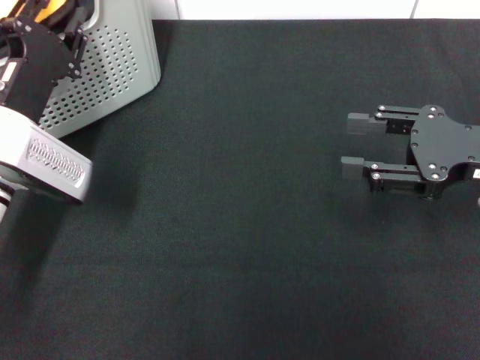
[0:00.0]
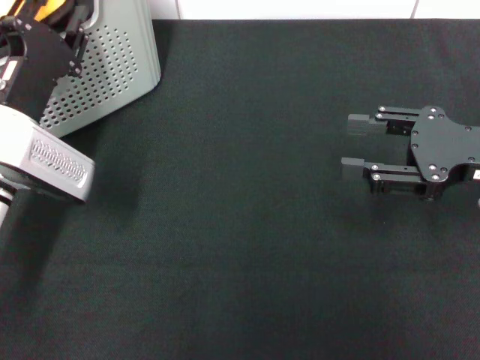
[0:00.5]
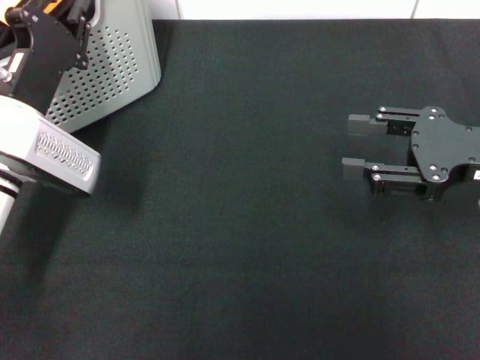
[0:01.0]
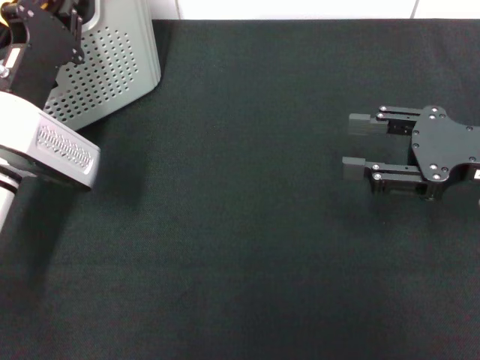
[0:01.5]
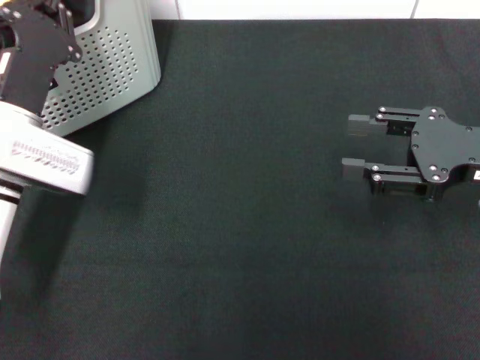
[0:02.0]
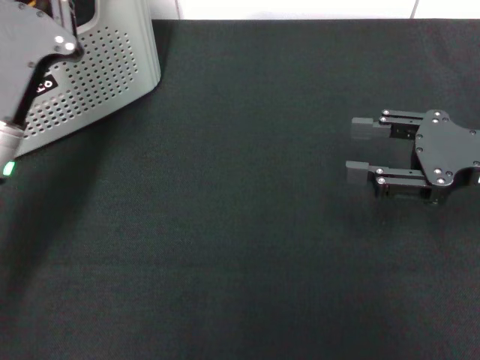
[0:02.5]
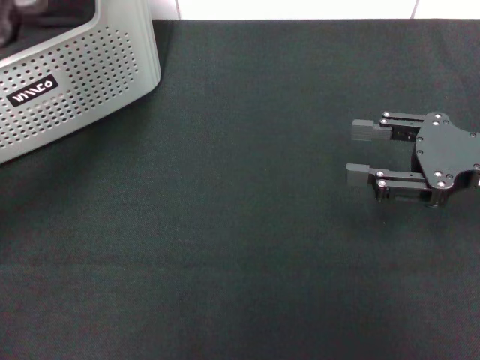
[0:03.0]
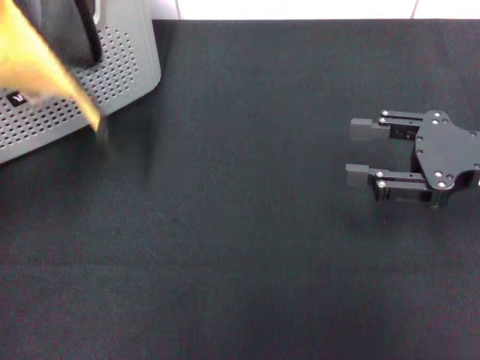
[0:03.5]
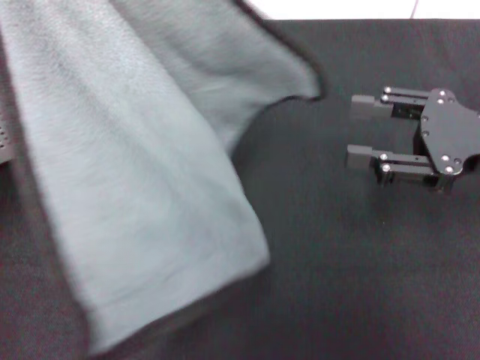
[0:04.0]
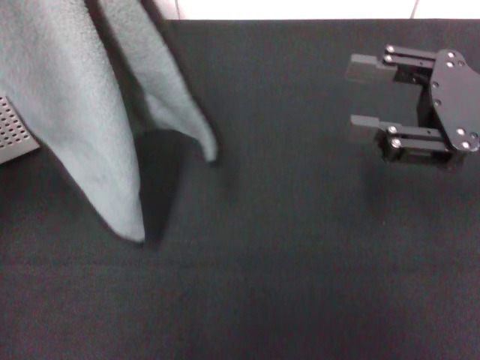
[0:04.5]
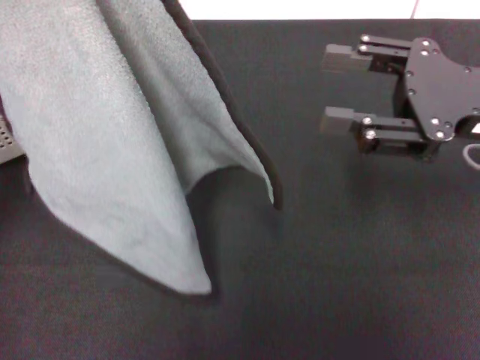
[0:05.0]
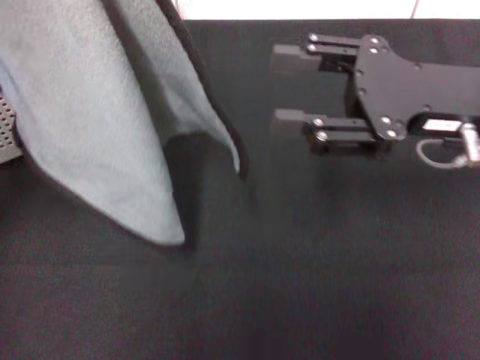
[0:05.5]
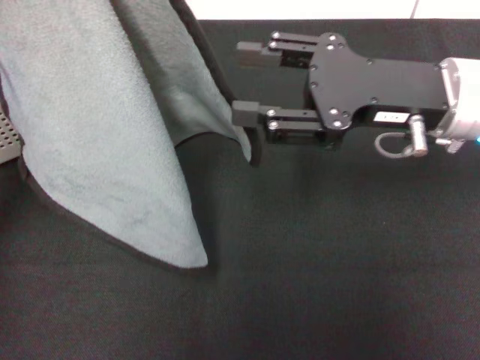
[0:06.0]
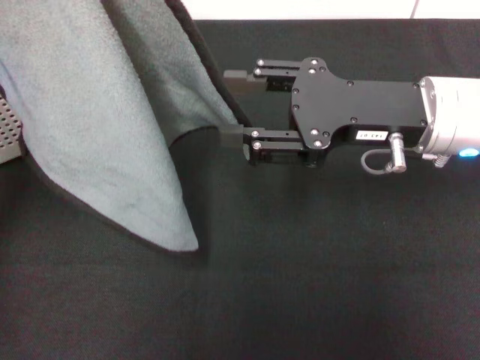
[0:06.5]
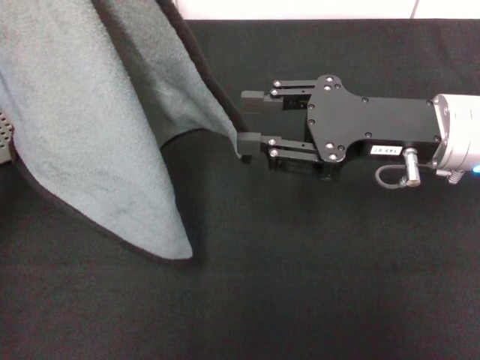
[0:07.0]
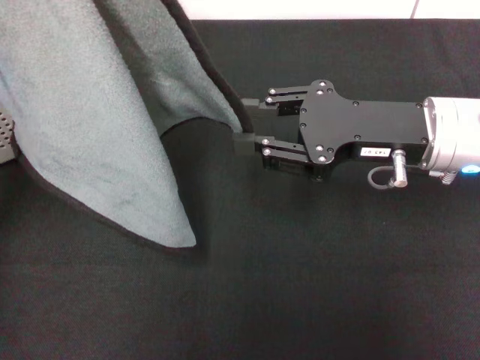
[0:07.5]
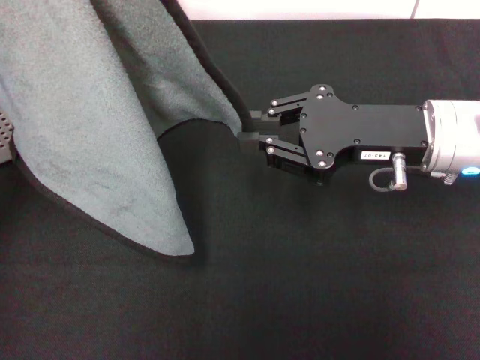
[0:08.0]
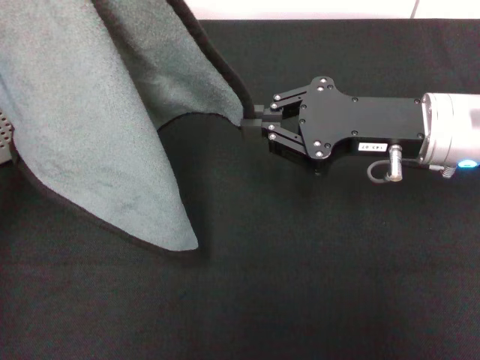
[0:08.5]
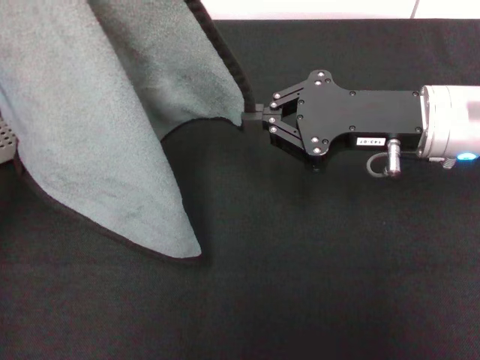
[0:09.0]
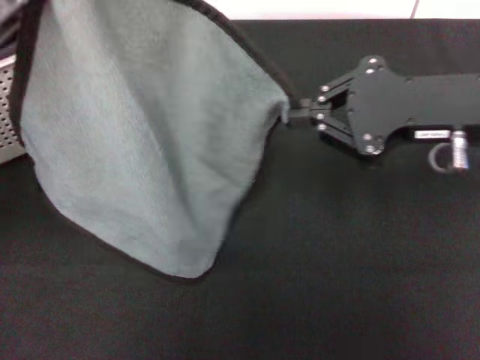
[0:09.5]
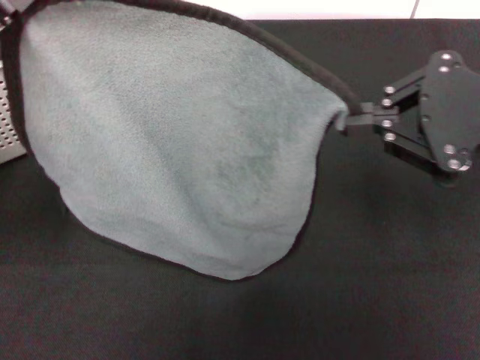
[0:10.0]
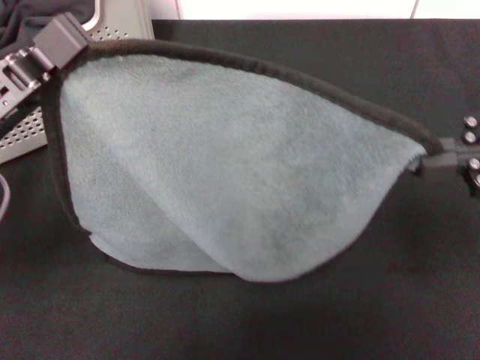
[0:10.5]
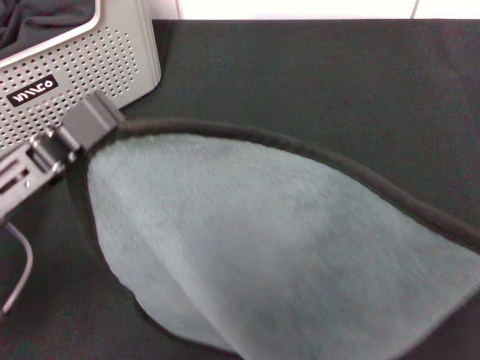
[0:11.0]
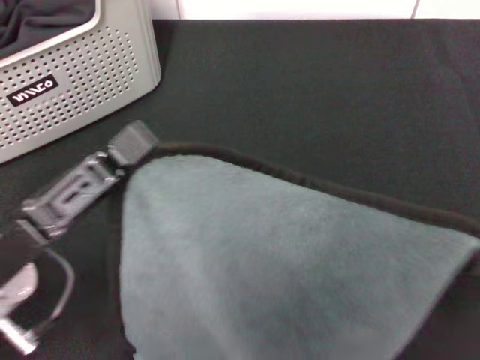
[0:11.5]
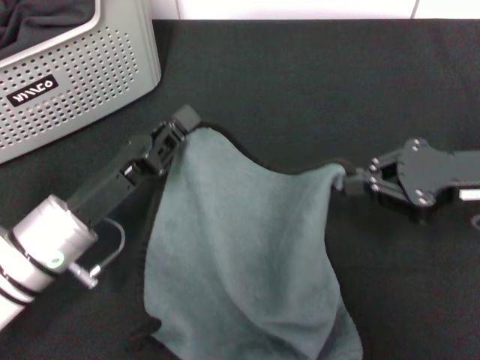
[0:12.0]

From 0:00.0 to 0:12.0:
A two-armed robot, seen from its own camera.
Task of the whole recording: pick up the towel from the storage box and lay it flat on the black tablecloth.
Step, from 0:02.0 to 0:08.5: Spread the towel flat with the left gripper.
From 0:00.0 to 0:02.0: The left gripper closes.
From 0:02.0 to 0:04.0: The left gripper moves upward, about 15 cm.
From 0:04.0 to 0:06.0: The right gripper shifts some 10 cm to the left.
From 0:06.0 to 0:08.0: The right gripper closes up.
From 0:08.0 to 0:10.0: The right gripper travels upward, to the right and backward by roughly 10 cm; the left gripper ends up about 5 cm from where it was.
From 0:10.0 to 0:12.0: The left gripper shifts roughly 15 cm downward and to the right, while the right gripper moves downward, roughly 10 cm.

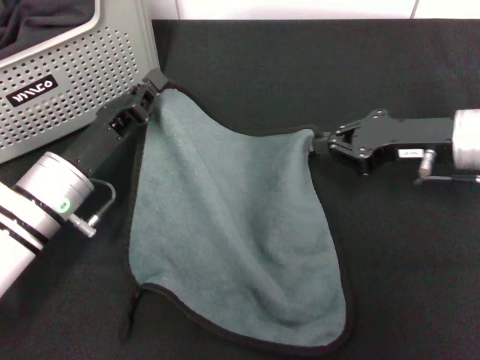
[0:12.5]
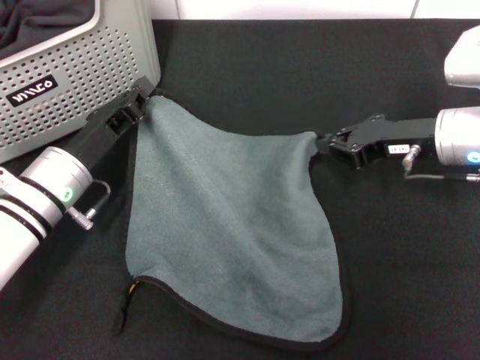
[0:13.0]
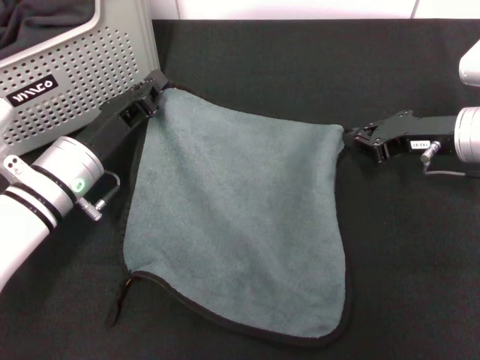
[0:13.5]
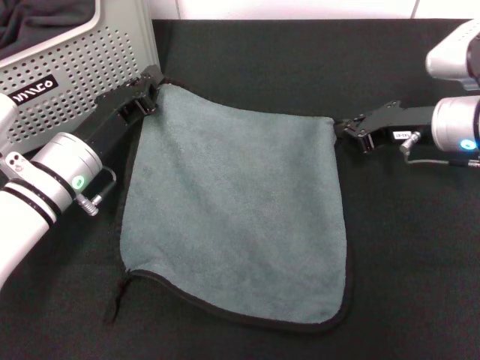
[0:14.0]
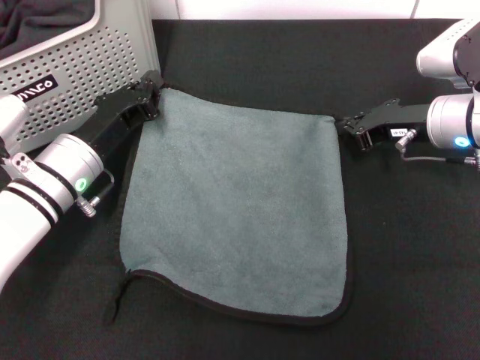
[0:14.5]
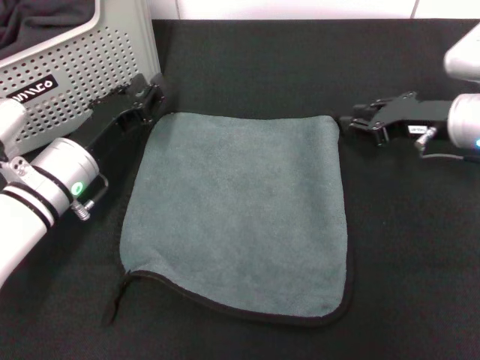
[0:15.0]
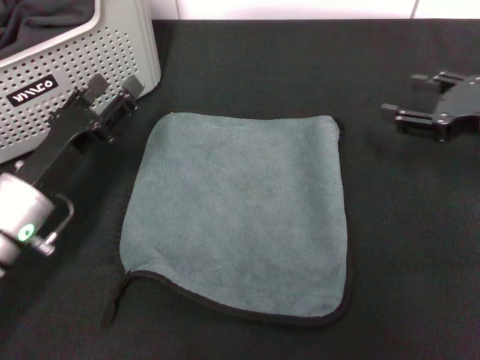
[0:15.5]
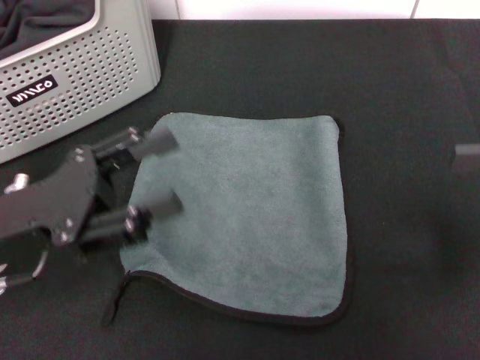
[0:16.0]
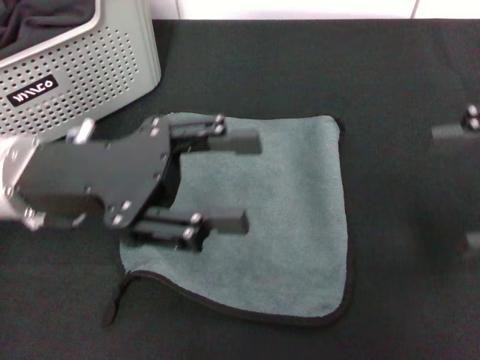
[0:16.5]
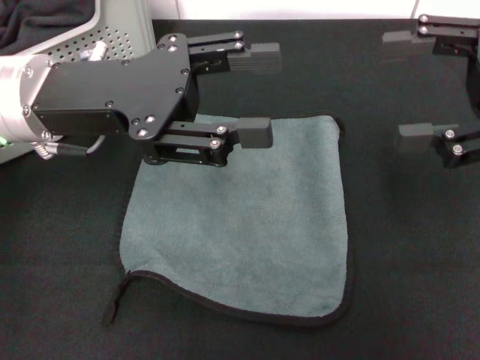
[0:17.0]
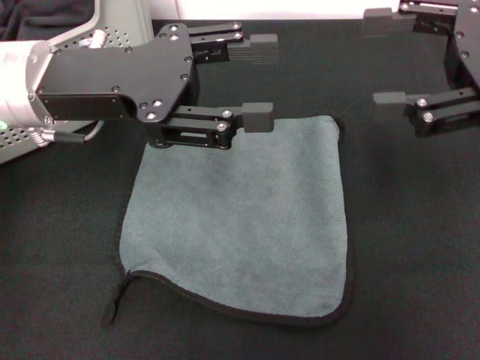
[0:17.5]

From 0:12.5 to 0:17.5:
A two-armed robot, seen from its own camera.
Task of the whole recording: pick up the towel from the storage box and lay it flat on the black tablecloth.
Step, from 0:12.5 to 0:14.5: Spread the towel flat with the right gripper.
From 0:15.0 to 0:17.5: The left gripper heads upward, covering some 15 cm, and opens its fingers, while the right gripper shifts roughly 15 cm upward and backward, and opens its fingers.

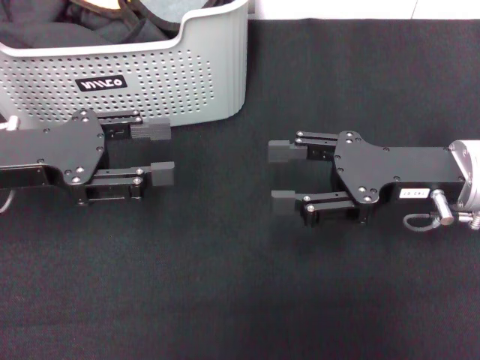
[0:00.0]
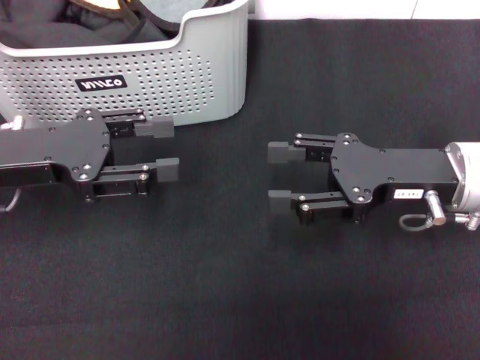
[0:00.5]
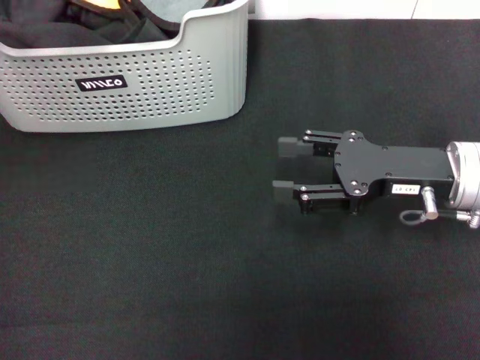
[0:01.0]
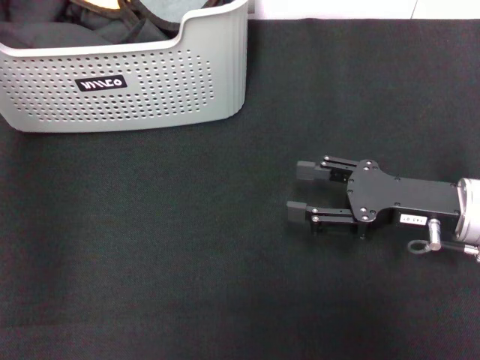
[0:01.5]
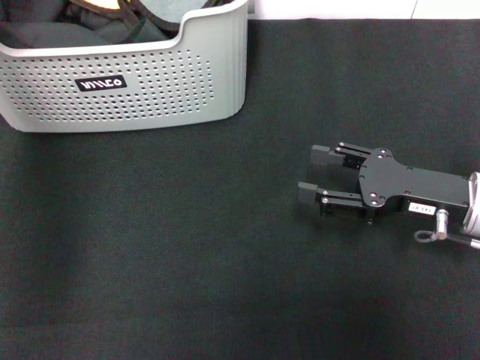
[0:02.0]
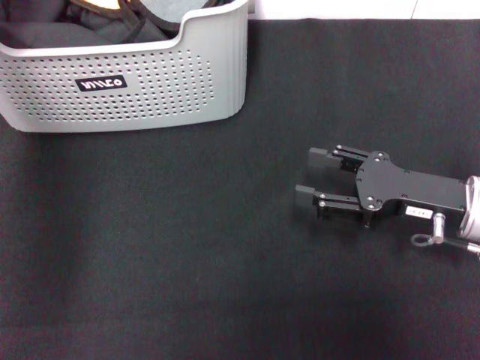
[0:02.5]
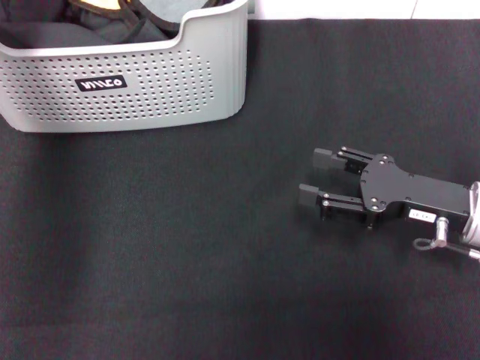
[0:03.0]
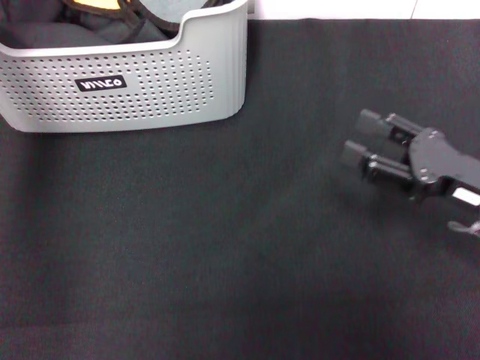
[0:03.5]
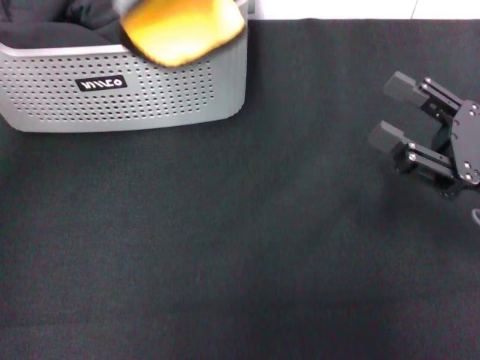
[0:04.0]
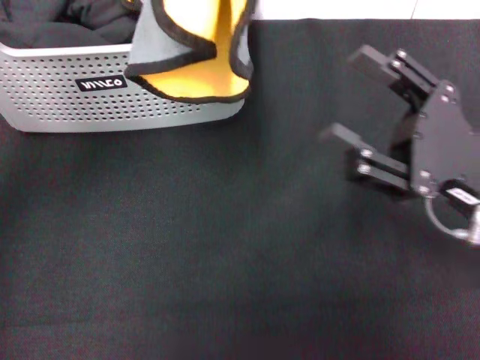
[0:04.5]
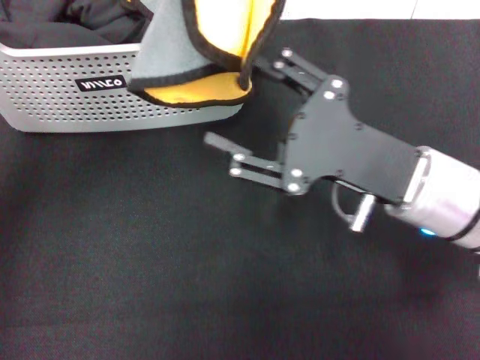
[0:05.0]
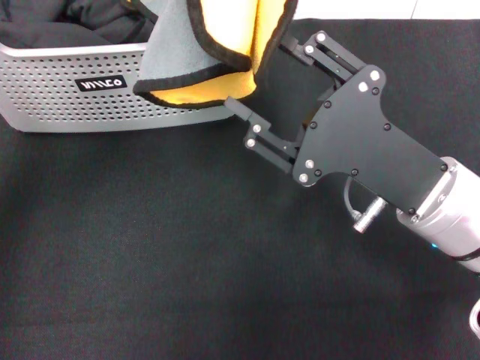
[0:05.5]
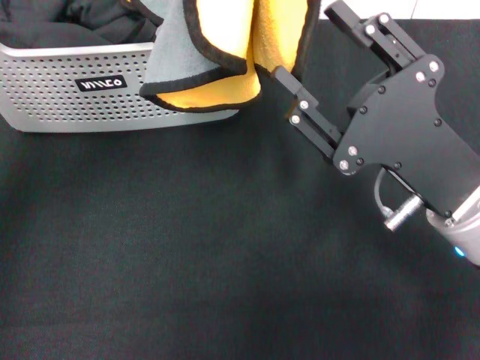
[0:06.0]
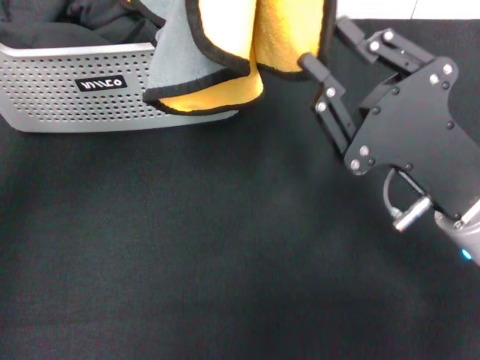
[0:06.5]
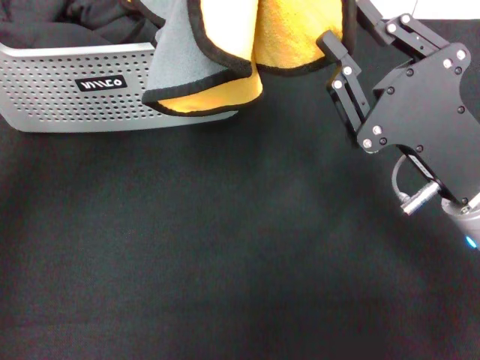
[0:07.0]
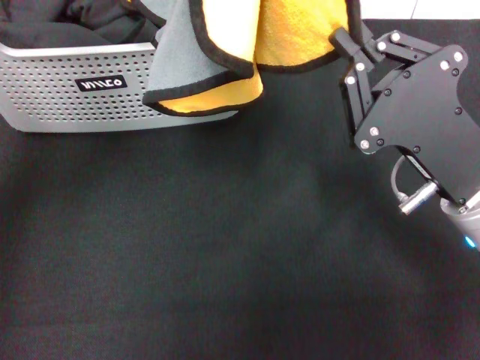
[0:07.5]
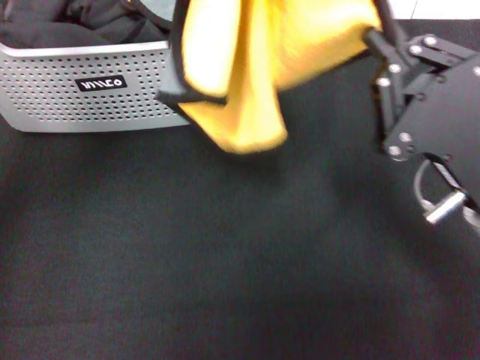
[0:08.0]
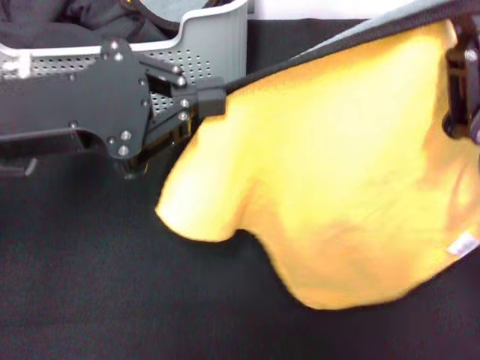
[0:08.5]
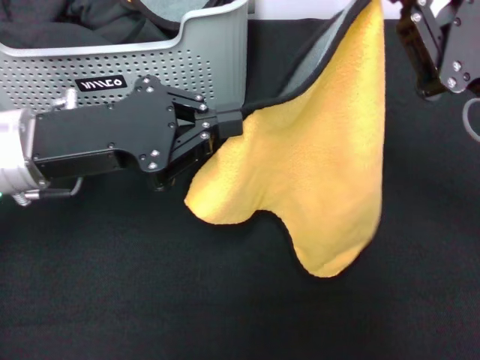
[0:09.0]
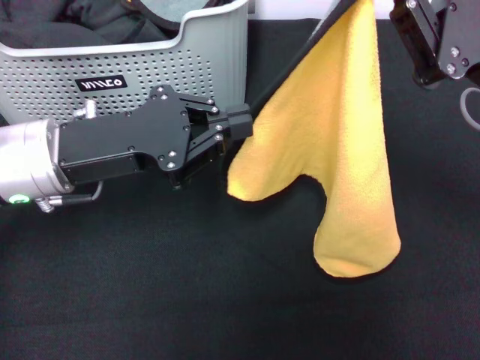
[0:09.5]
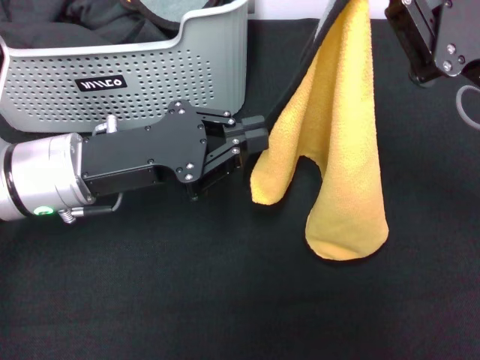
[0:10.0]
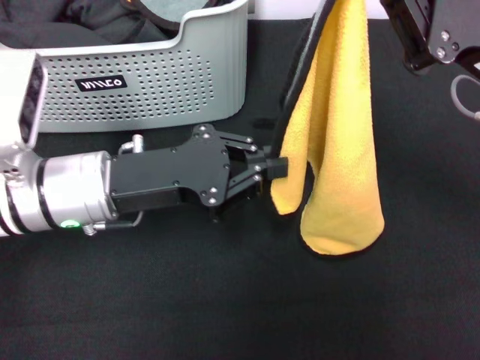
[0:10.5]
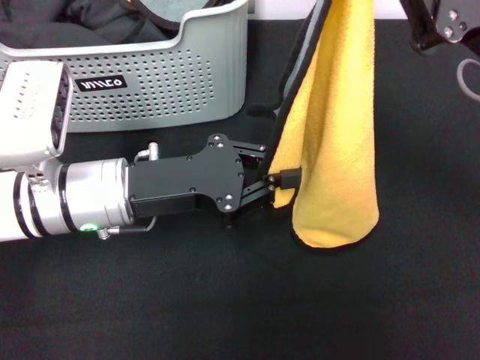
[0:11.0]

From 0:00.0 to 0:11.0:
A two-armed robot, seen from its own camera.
Task of the whole recording: pick up the towel from the storage box and lay it flat on the black tablecloth.
Step, from 0:00.0 to 0:02.5: Pick up a towel with the left gripper.
Step, from 0:03.5 to 0:07.5: Spread the towel flat with the left gripper.
From 0:00.0 to 0:02.0: The left gripper heads forward and upward, covering roughly 20 cm; the right gripper moves roughly 5 cm.
From 0:03.5 to 0:05.5: The right gripper is displaced to the left by some 10 cm. The left gripper is displaced backward by roughly 15 cm.
From 0:05.5 to 0:07.5: The right gripper closes.
From 0:07.5 to 0:09.0: The right gripper goes about 5 cm upward; the left gripper moves downward, roughly 15 cm.
From 0:09.0 to 0:11.0: The left gripper heads downward, covering approximately 5 cm.
